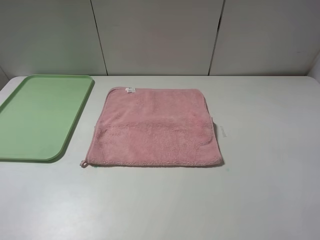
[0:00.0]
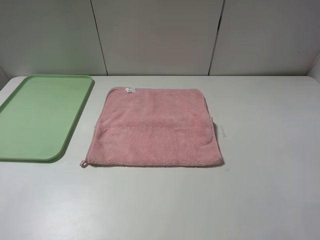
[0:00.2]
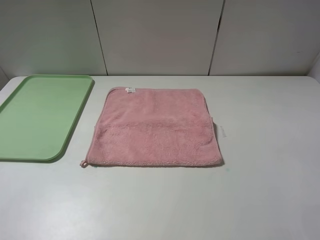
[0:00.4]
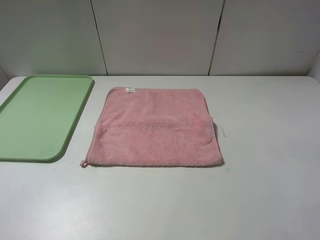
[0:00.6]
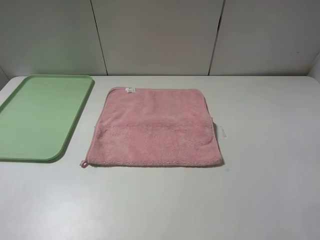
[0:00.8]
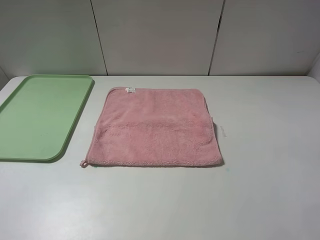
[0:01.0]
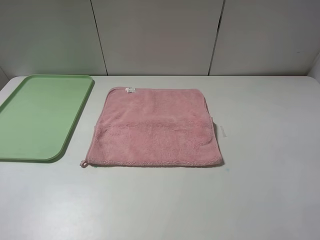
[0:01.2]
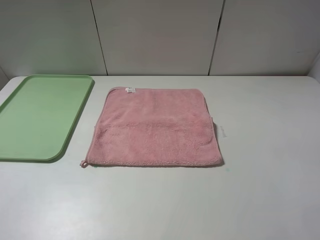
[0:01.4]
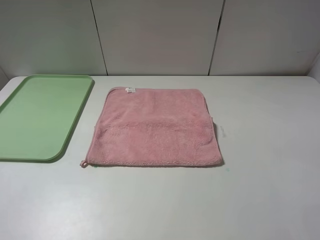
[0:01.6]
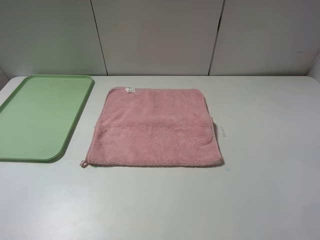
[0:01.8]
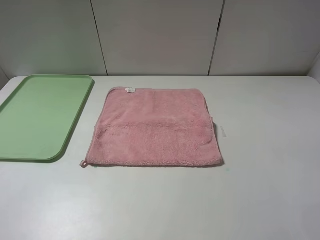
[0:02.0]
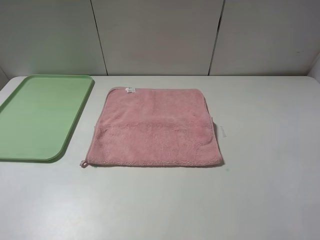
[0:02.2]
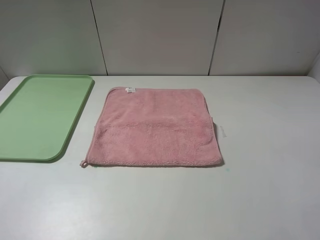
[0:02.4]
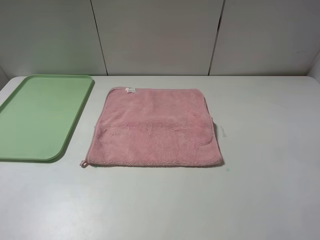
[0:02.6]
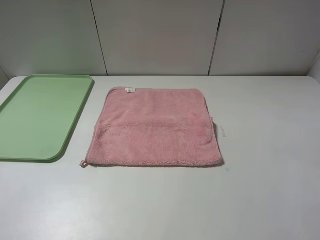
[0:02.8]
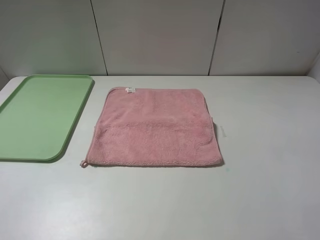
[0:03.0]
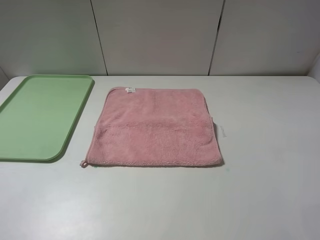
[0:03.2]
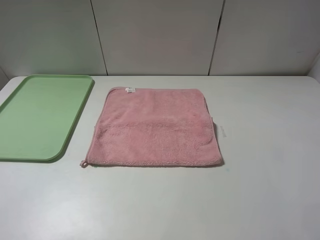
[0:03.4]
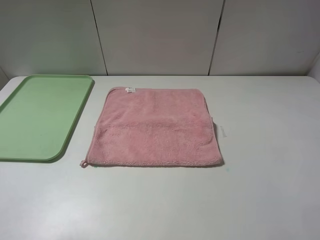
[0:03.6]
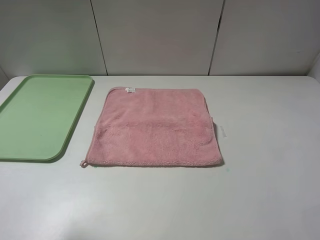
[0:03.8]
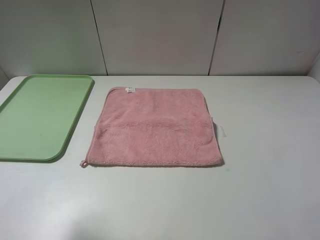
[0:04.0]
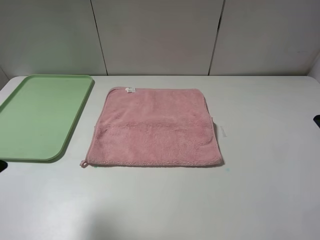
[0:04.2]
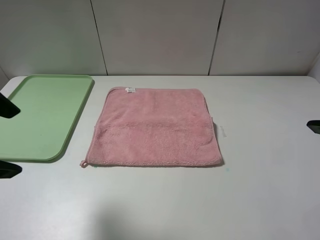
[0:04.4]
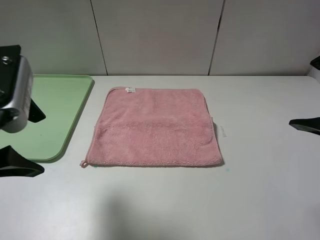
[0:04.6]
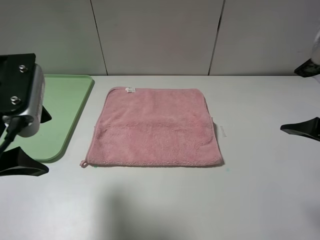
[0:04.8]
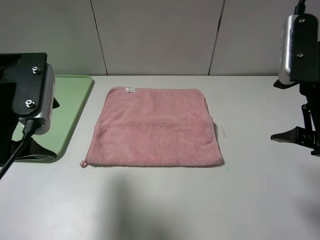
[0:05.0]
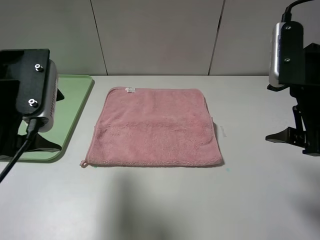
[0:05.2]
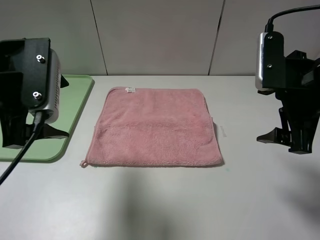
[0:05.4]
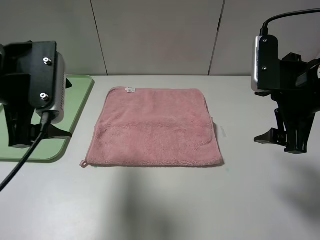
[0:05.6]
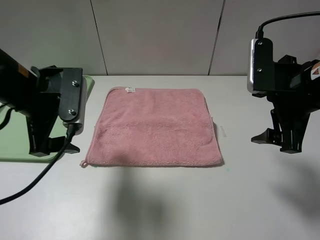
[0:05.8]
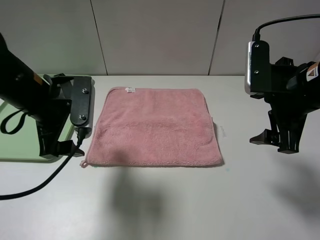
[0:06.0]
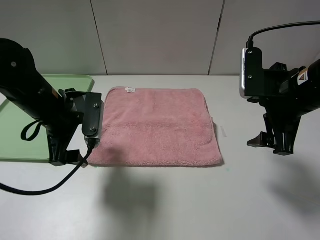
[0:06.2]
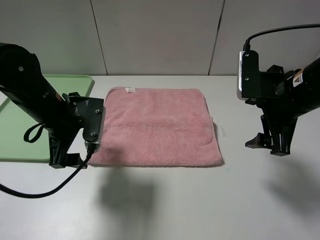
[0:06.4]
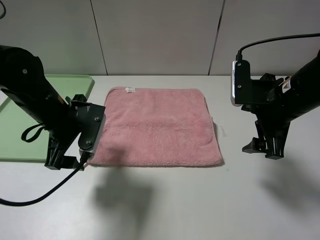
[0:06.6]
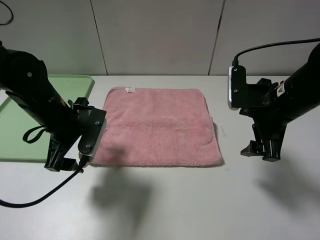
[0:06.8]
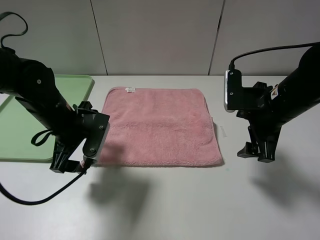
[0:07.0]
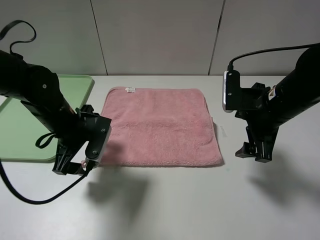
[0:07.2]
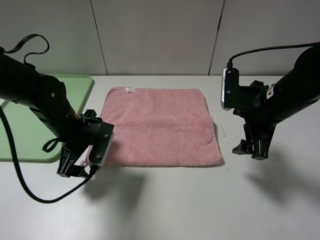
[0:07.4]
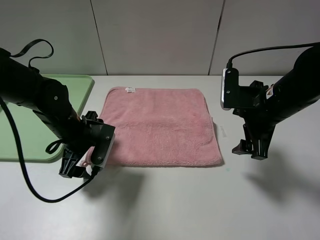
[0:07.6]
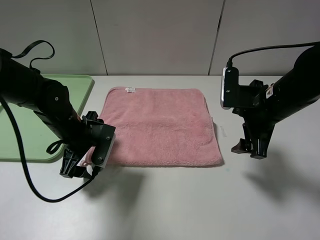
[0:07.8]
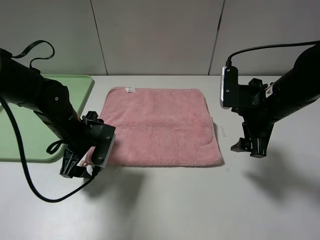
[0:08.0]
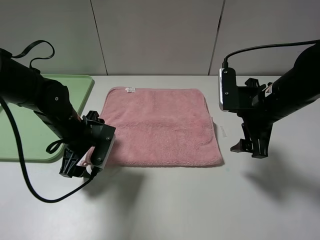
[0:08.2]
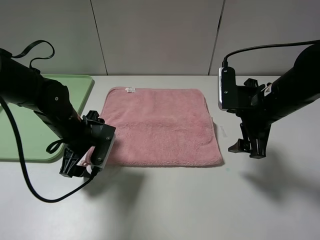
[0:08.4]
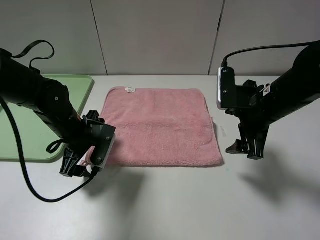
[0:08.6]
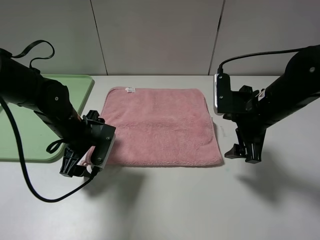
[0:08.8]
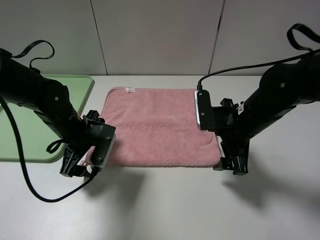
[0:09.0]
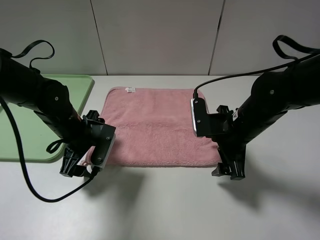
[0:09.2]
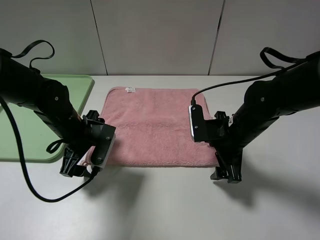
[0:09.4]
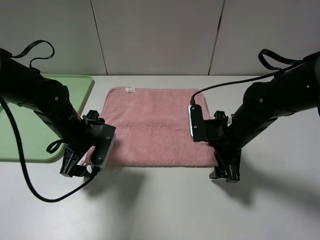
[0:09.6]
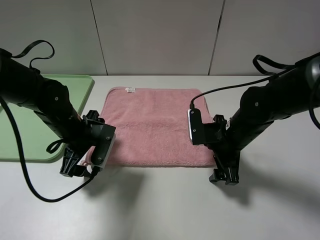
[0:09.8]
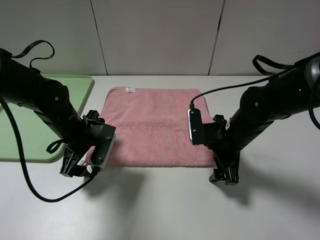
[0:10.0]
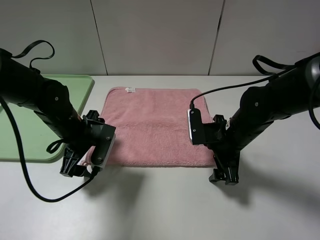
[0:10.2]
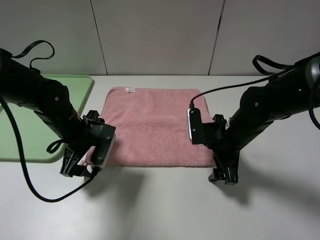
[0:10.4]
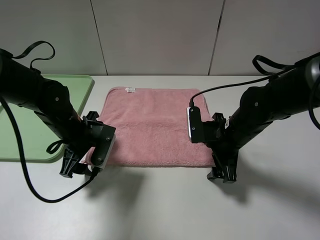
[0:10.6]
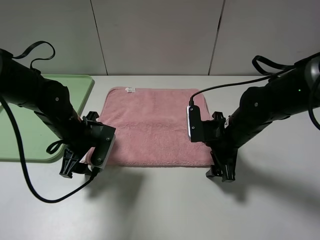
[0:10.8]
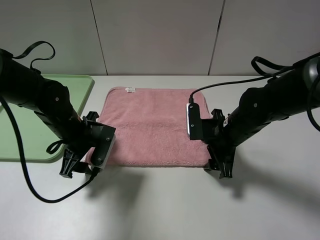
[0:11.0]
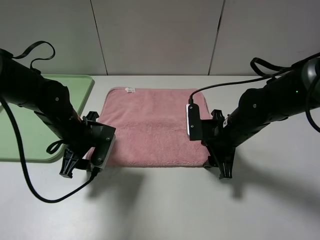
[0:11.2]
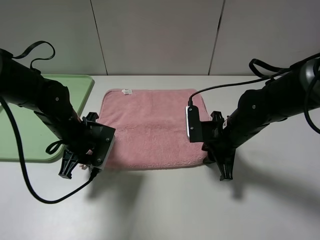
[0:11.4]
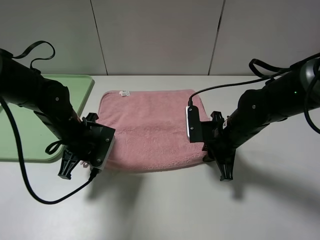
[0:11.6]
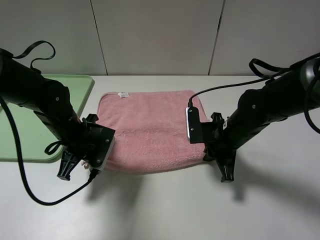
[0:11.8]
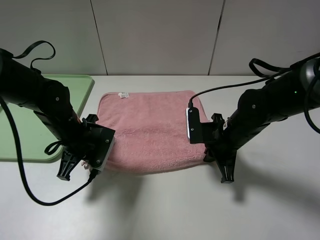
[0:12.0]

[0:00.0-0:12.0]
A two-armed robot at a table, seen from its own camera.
0:00.0 to 0:01.6: Neither gripper changes place.
0:03.0 to 0:04.4: The right gripper shifts roughly 10 cm forward; the left gripper shifts about 15 cm forward and to the right.
0:04.4 to 0:06.0: Both grippers travel together forward and downward, some 15 cm.
0:06.0 to 0:07.6: The right gripper heads downward, covering some 5 cm. The left gripper goes some 10 cm downward.
0:07.6 to 0:09.0: The right gripper moves about 5 cm.
0:09.0 to 0:10.4: The right gripper goes about 5 cm downward.
0:10.4 to 0:12.0: The right gripper closes its fingers. The left gripper closes up.

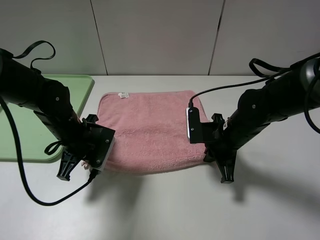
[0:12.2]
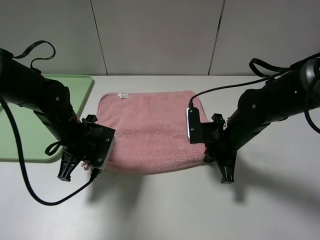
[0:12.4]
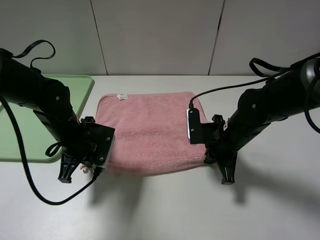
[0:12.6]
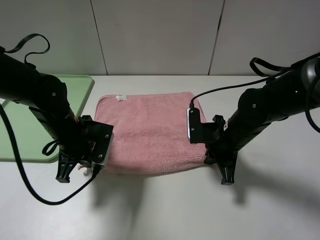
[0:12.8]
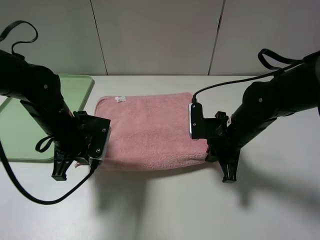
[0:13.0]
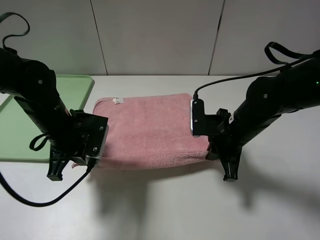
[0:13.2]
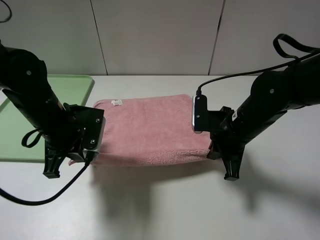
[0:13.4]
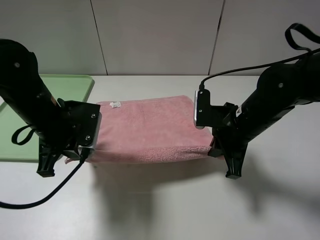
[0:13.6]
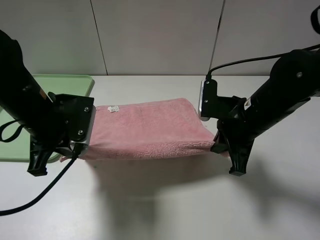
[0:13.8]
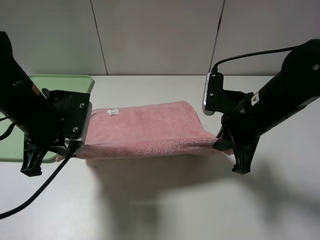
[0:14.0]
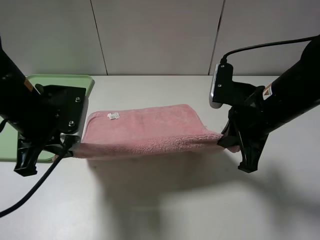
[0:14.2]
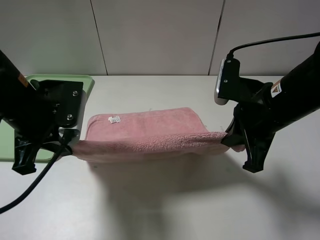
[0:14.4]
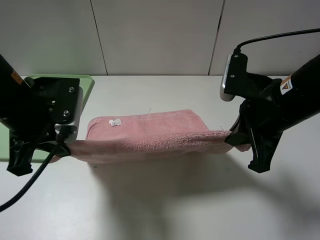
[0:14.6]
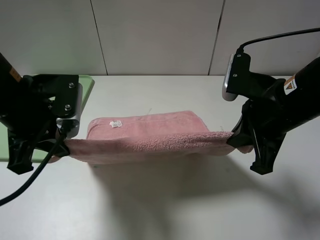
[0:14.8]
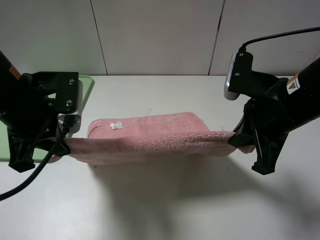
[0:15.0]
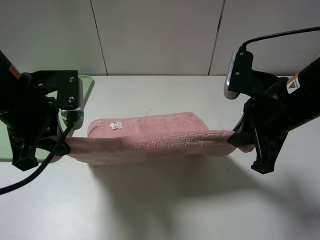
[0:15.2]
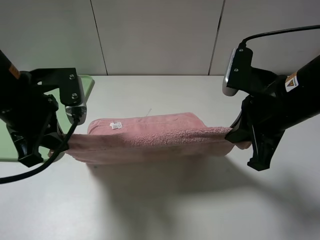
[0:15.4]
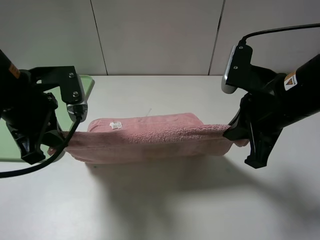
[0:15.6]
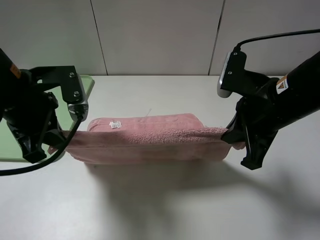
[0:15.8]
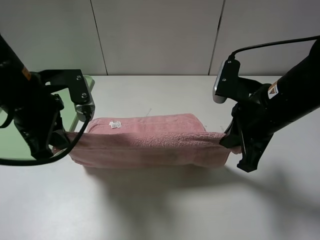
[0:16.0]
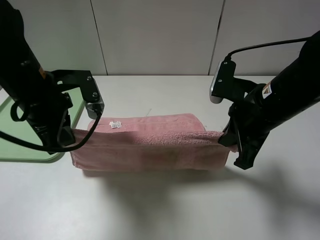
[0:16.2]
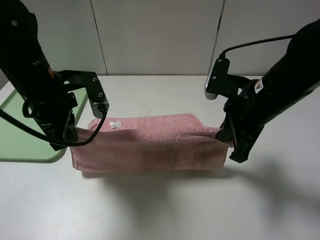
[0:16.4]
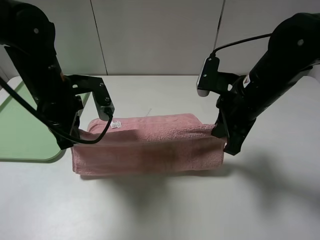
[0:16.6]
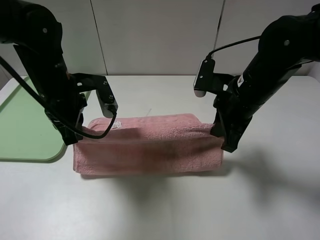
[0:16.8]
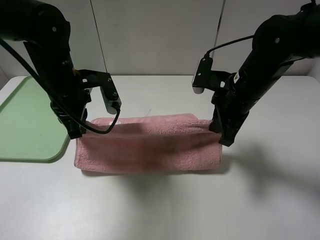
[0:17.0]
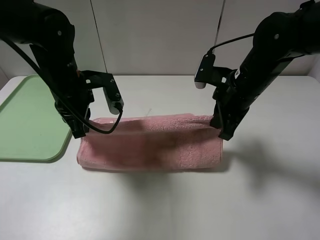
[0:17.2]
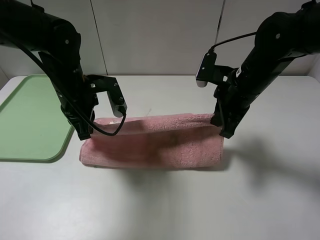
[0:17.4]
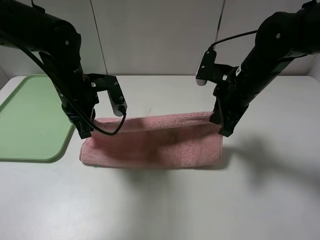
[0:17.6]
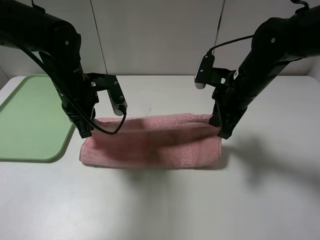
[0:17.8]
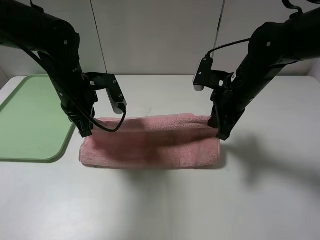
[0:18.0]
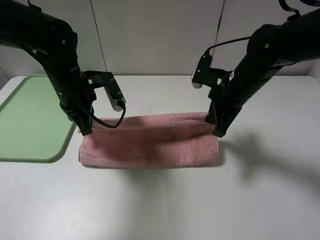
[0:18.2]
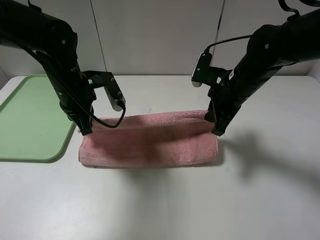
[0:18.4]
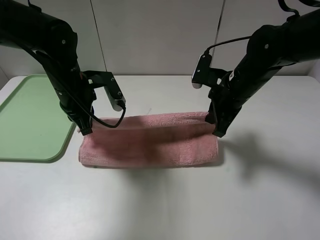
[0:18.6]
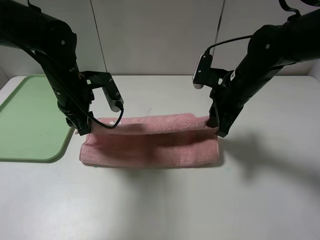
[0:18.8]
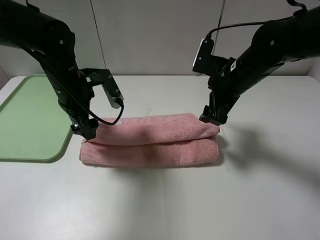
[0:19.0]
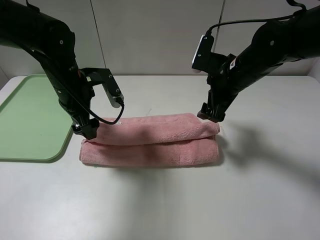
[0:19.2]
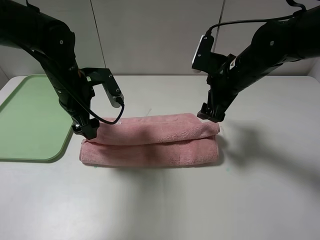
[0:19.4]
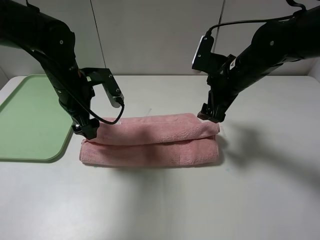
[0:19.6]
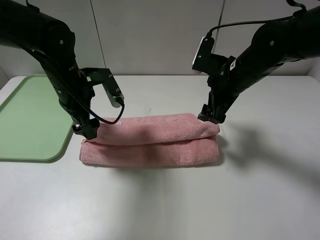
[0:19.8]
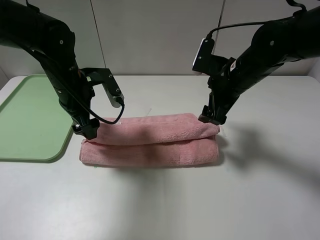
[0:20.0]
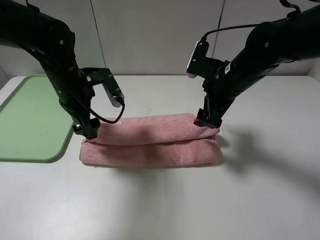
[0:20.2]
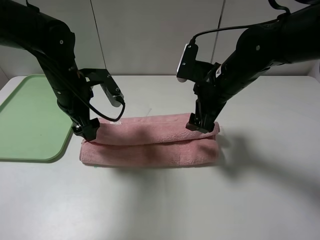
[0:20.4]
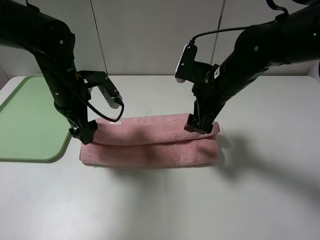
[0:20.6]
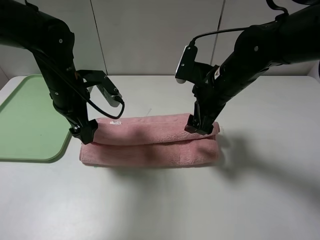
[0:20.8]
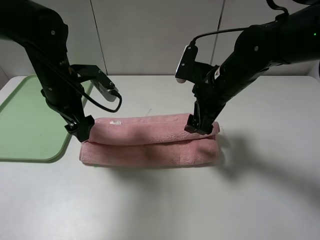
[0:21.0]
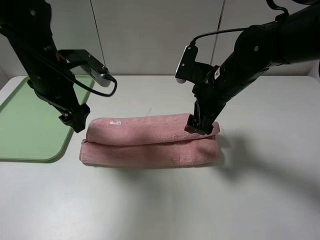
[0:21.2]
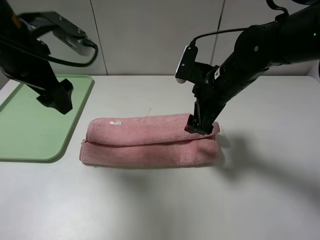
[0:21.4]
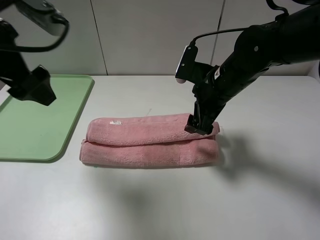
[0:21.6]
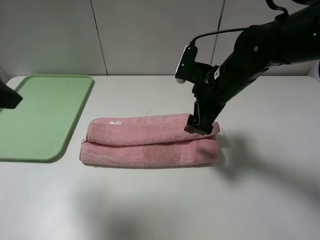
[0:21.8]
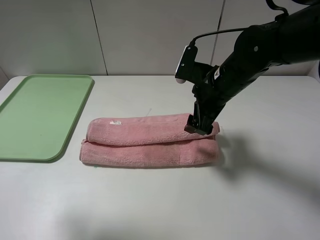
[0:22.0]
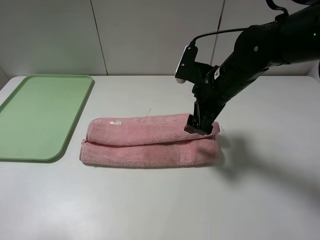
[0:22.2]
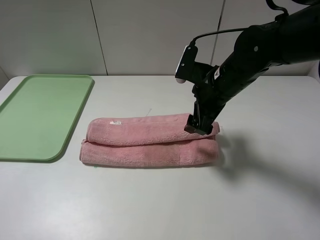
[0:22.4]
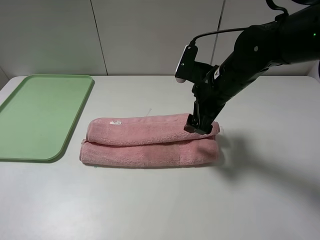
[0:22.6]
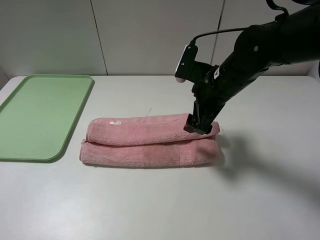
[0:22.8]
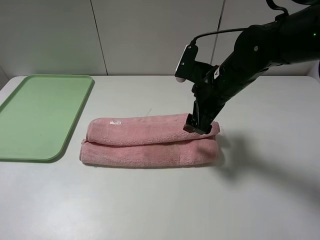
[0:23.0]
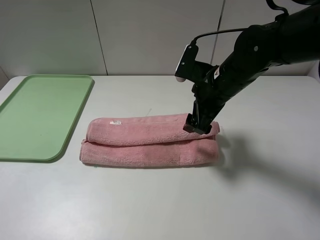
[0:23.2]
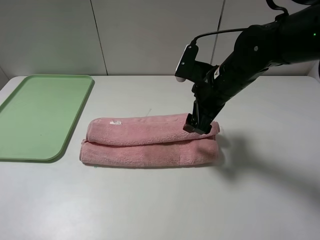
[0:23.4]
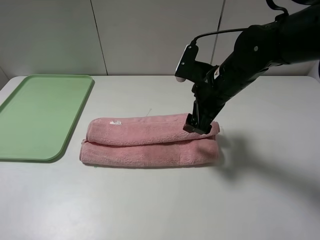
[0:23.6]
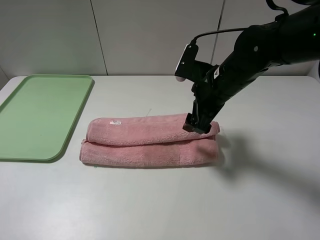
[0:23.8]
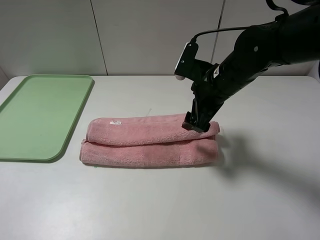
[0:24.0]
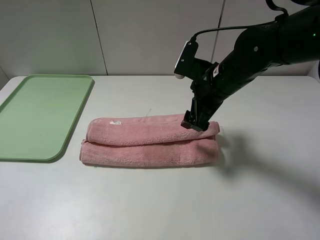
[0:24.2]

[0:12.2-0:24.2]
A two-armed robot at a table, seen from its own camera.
0:12.2 to 0:13.8: Both grippers move upward, about 10 cm.
0:13.8 to 0:15.2: The right gripper heads upward, covering roughly 5 cm.
0:15.2 to 0:16.6: The two grippers go about 5 cm forward.
0:16.6 to 0:18.2: The left gripper ends up approximately 5 cm from where it was. Meanwhile the right gripper goes about 5 cm forward.
0:18.2 to 0:19.8: The right gripper opens; the left gripper opens.
0:19.8 to 0:21.2: The left gripper travels upward by roughly 5 cm.
0:21.2 to 0:22.6: The left gripper heads backward and to the left, covering some 30 cm.
